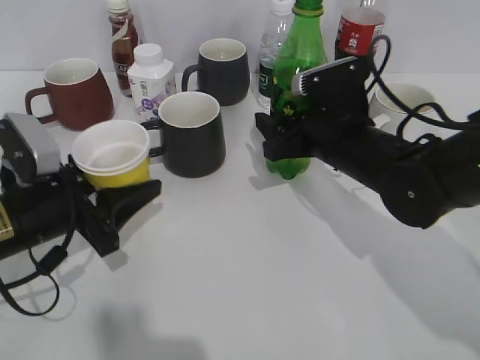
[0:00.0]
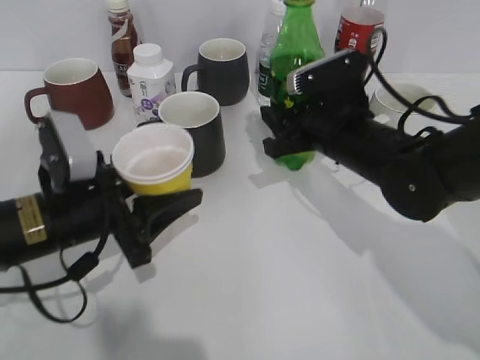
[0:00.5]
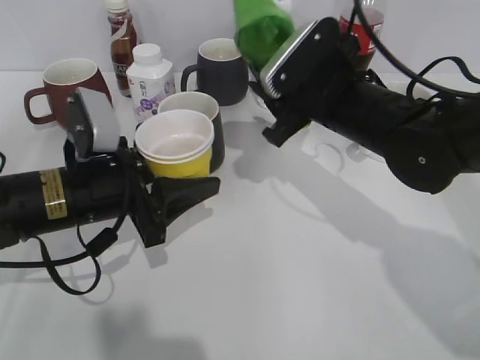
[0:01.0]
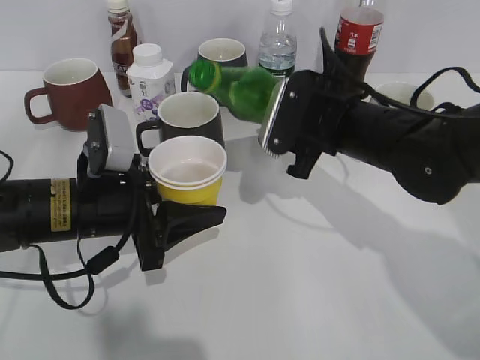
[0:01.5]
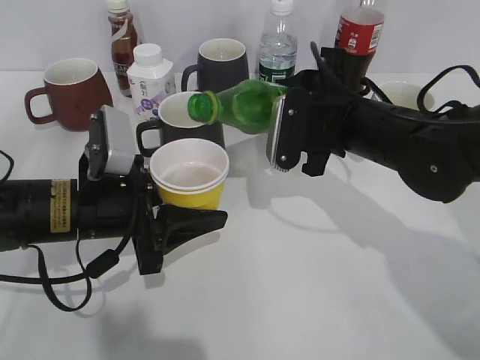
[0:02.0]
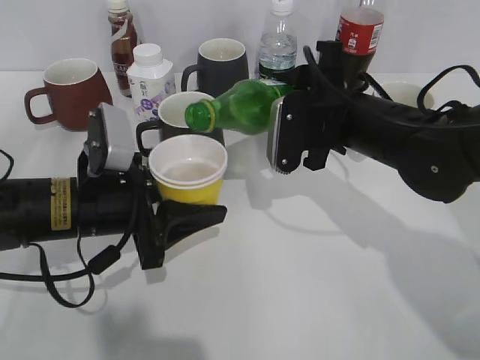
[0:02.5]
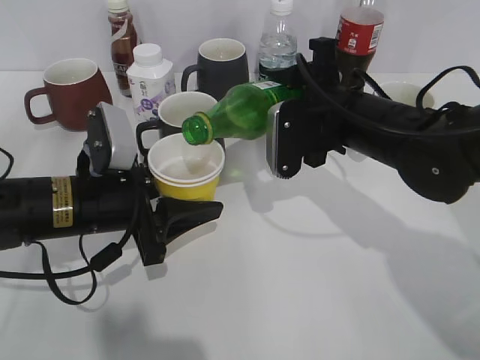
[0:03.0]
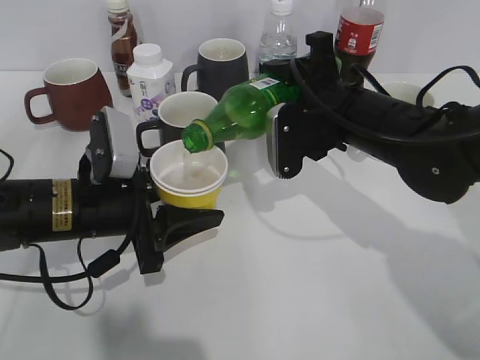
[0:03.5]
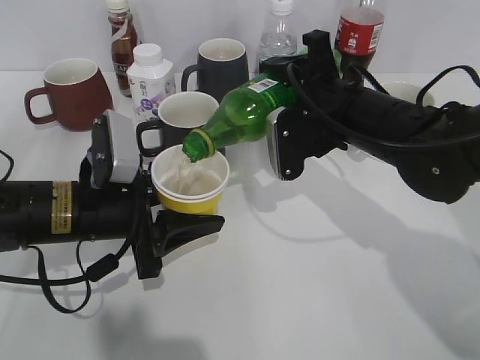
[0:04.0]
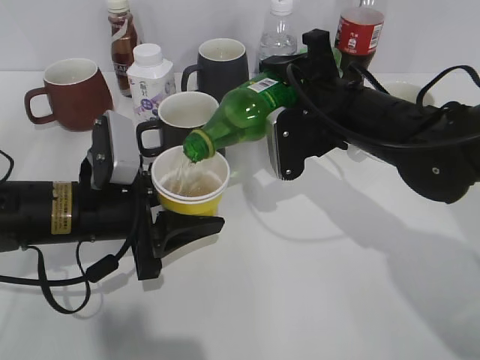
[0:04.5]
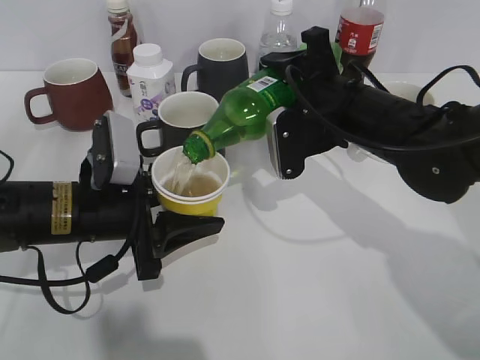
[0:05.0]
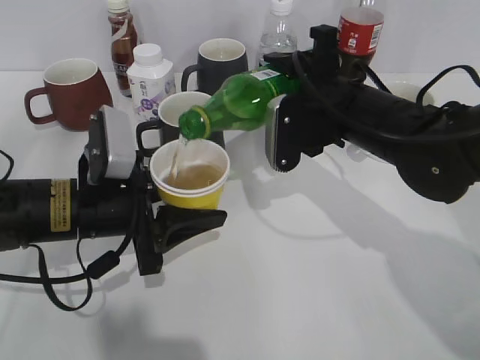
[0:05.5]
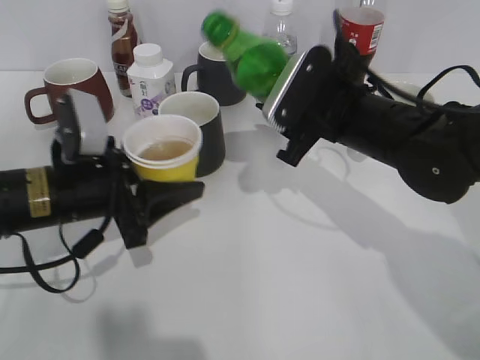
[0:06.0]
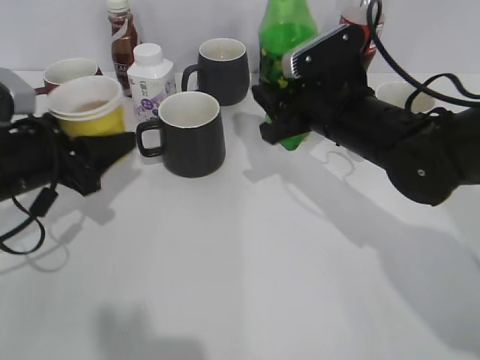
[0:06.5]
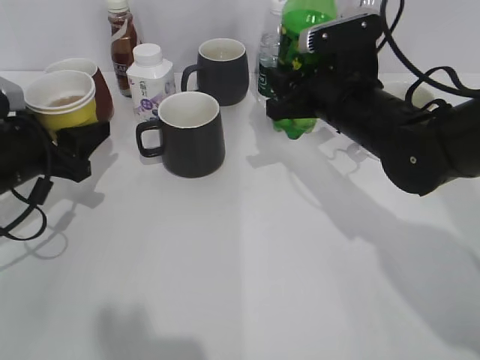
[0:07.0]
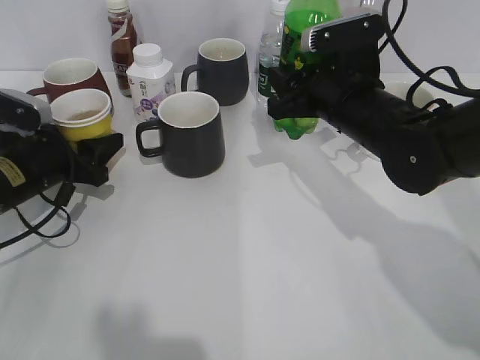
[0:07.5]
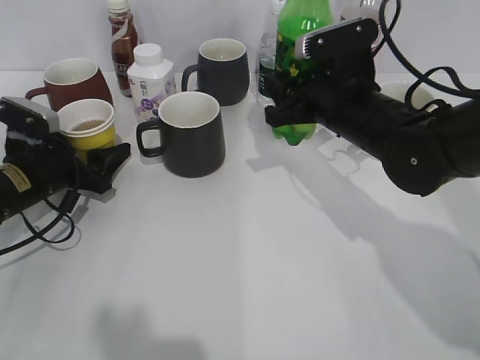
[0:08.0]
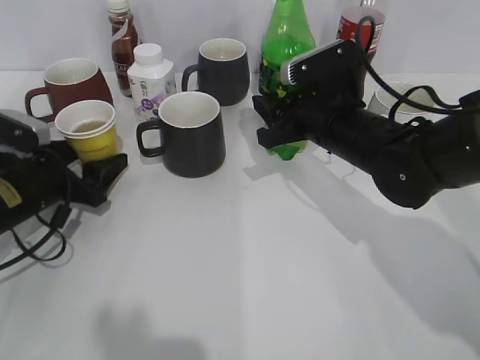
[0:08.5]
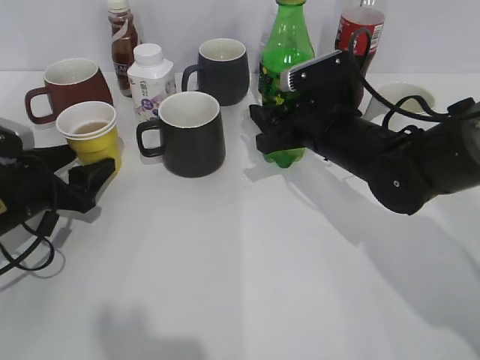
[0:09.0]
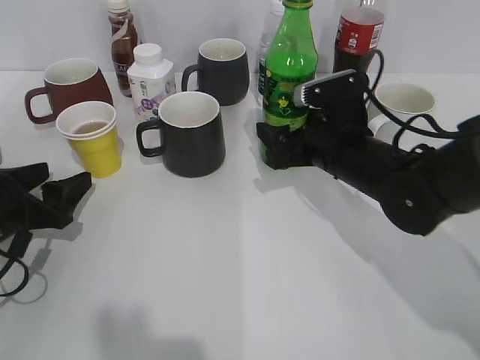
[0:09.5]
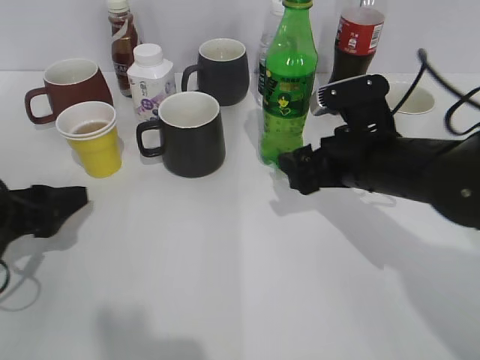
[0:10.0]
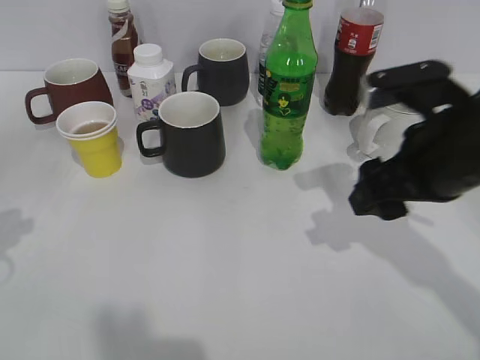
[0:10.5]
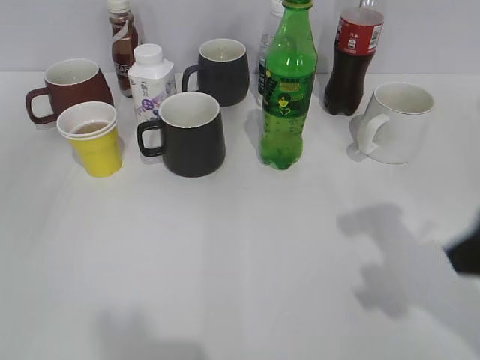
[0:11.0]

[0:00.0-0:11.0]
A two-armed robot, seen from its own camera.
Step, 0:00.5 to 0:05.5: Pour the sprite from bottle to cup with right gripper.
Step, 0:06.0 to 0:07.5: Place the yellow paper cup on the table with left gripper.
Step, 0:08.0 to 0:09.5: Place the sprite bottle on the table with right gripper.
0:00.0 to 0:02.0: The right gripper closes; the left gripper goes approximately 5 cm to the right.
0:02.0 to 0:03.5: There are only small adjustments of the grippers.
0:03.5 to 0:05.5: The grippers move only a little.
0:05.5 to 0:07.5: The left gripper heads to the left and forward, covering approximately 15 cm.
0:07.5 to 0:09.0: The left gripper opens its fingers.
0:09.0 to 0:11.0: The left gripper moves backward and upward, approximately 30 cm. The right gripper heads backward, upward and to the right, covering about 25 cm, and opens.

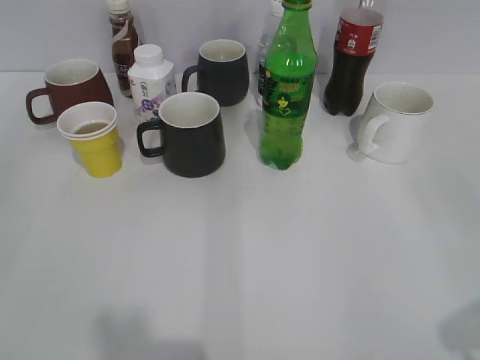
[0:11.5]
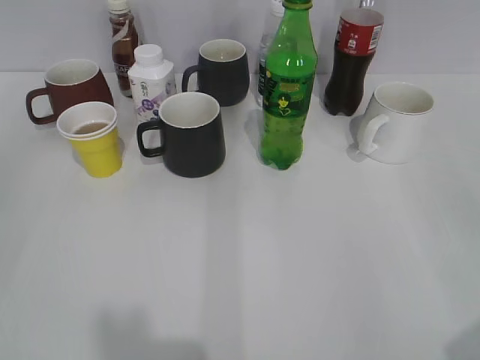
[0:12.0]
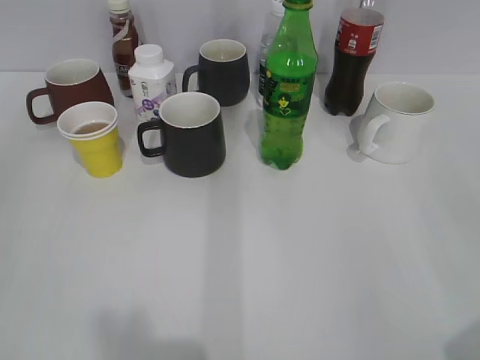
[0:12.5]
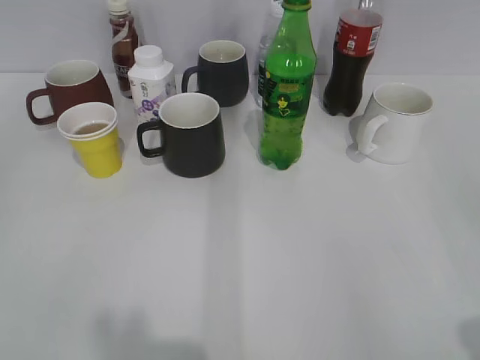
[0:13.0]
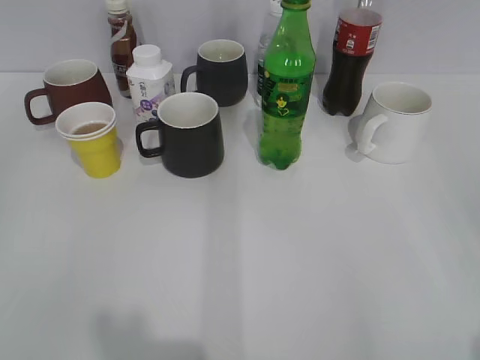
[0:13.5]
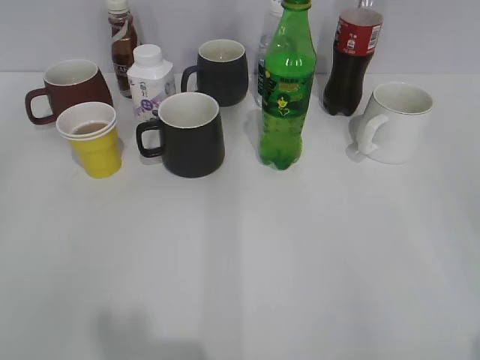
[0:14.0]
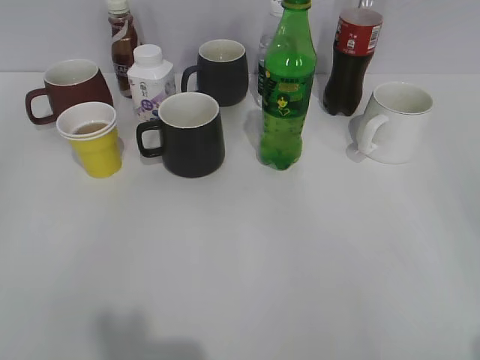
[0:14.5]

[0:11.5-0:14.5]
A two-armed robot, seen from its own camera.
0:13.0 to 0:14.5: The left gripper closes its fingers.

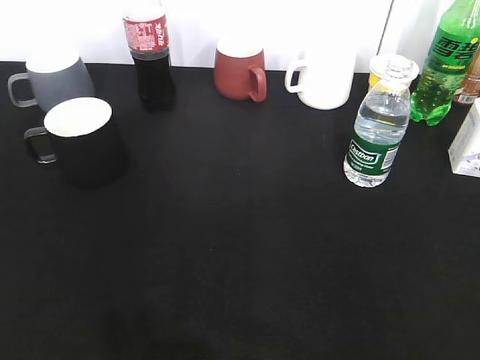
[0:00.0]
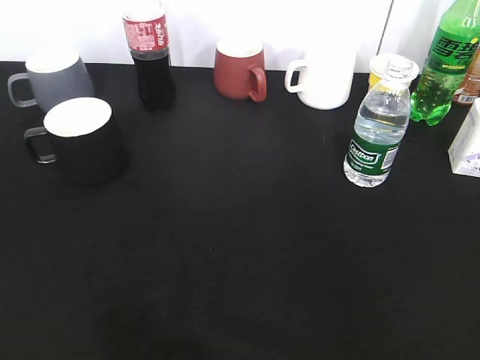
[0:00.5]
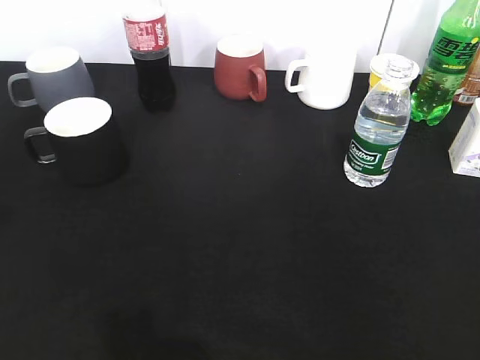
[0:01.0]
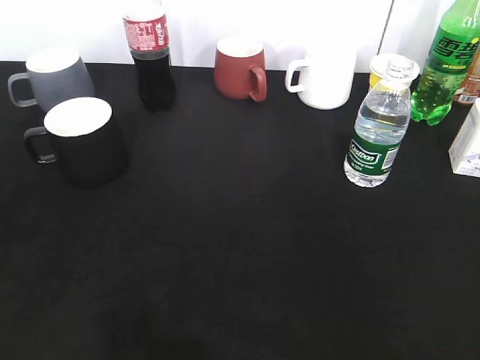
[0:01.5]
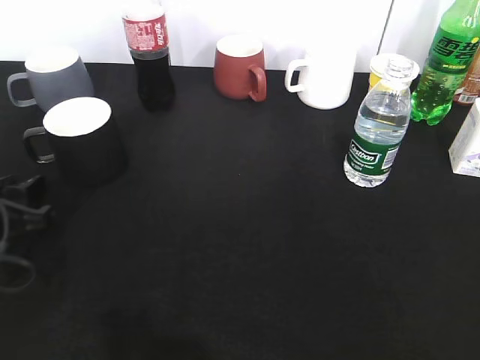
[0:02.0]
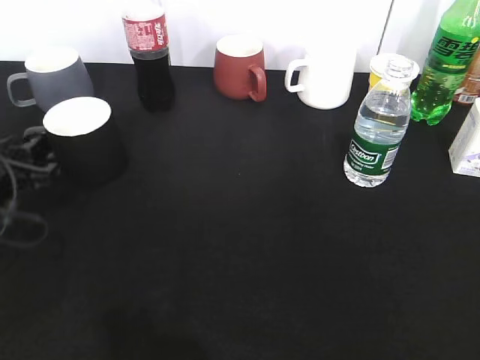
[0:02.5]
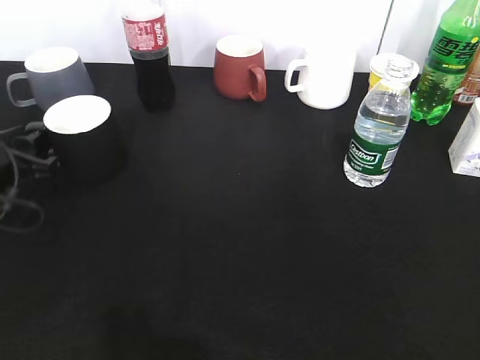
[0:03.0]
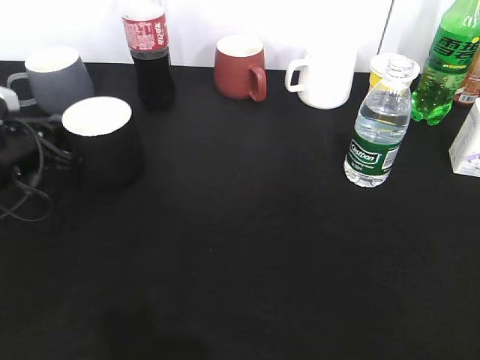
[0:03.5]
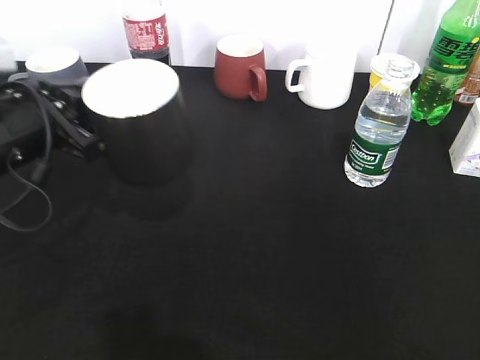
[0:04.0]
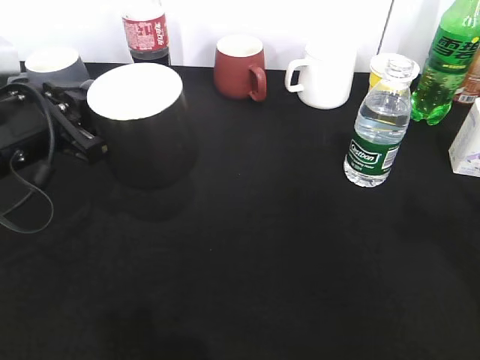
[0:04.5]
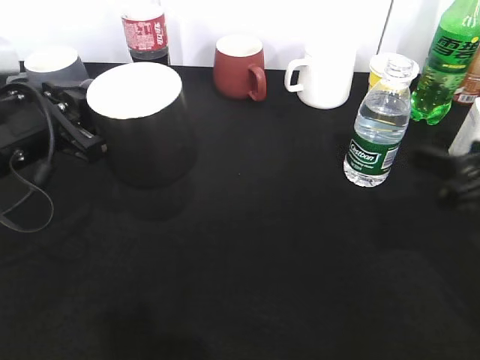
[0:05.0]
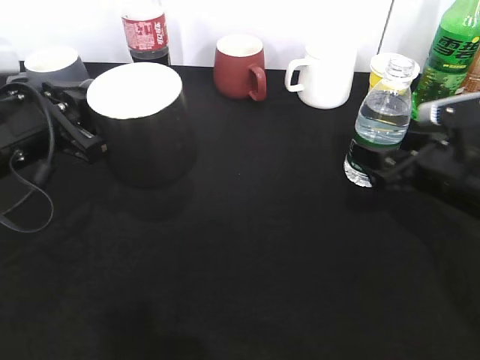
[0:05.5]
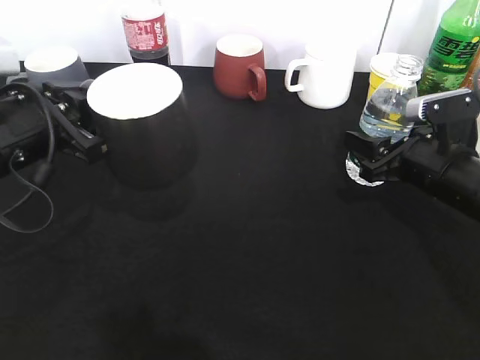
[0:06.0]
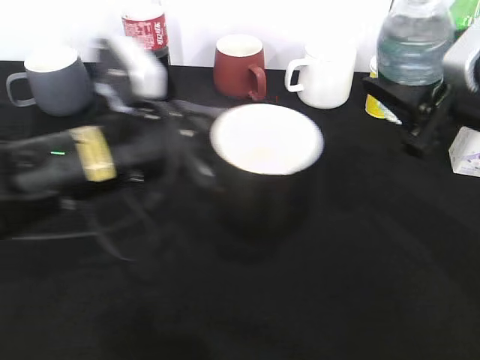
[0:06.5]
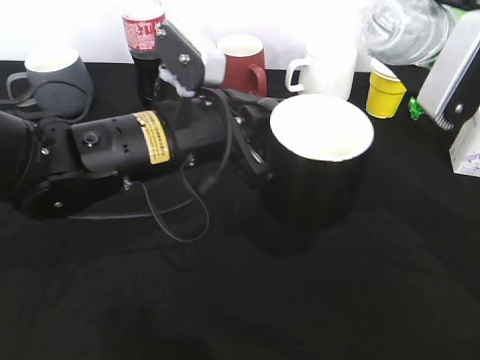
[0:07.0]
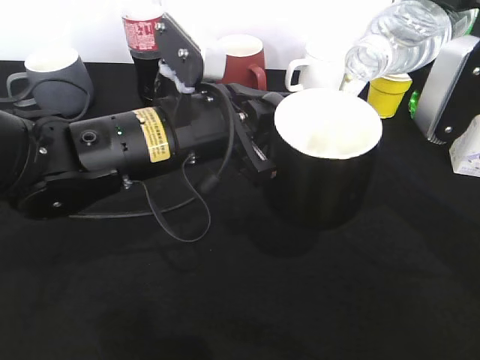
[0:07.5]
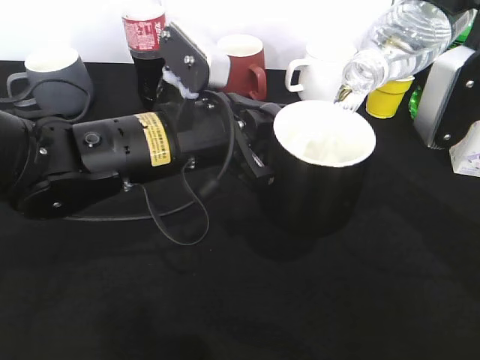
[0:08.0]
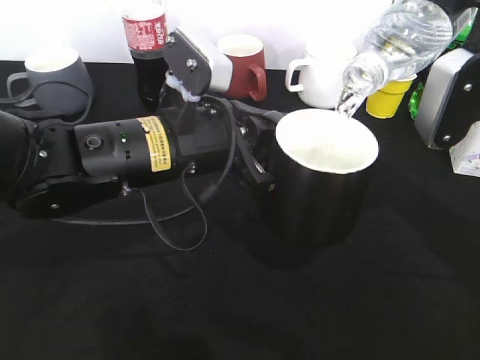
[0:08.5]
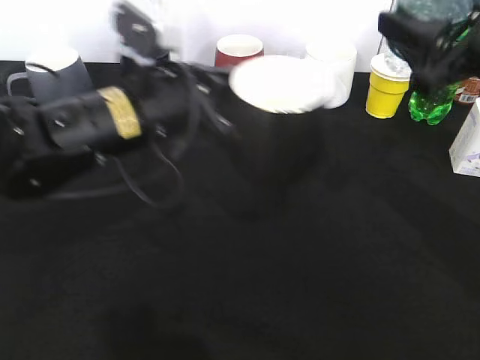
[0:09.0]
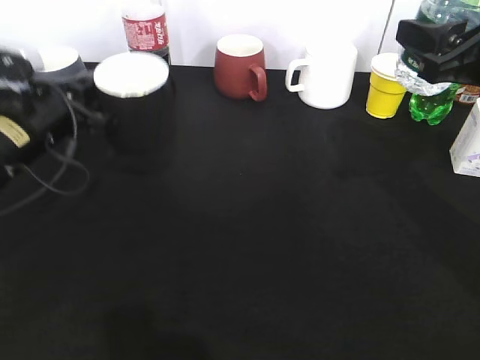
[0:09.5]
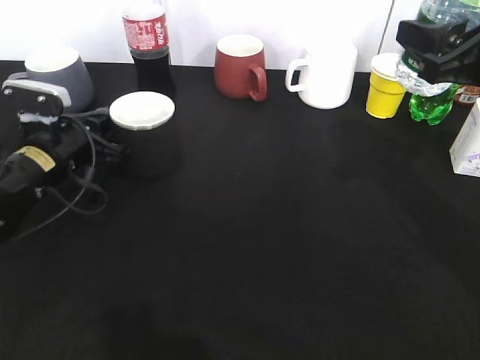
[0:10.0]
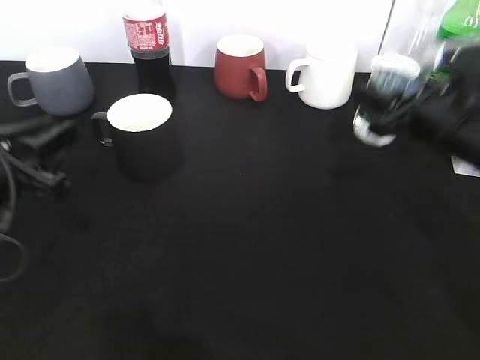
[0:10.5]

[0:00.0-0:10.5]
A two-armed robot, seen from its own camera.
Step, 0:00.5 to 0:03.0: Grasp the black cup with left gripper.
Step, 0:03.5 to 0:04.0: Lift the black cup with left gripper.
Step, 0:04.5 to 0:06.0: Grasp the bottle with water with right gripper.
Step, 0:06.5 to 0:08.5: Pour the water from bottle to cup with right gripper.
0:00.0 to 0:02.0: The left gripper is displaced forward and downward by some 30 cm, and opens.
0:02.0 to 0:04.0: The left gripper heads upward and to the right, covering approximately 10 cm, and closes.
0:04.0 to 0:06.5: The left gripper heads to the right, covering roughly 10 cm. Meanwhile the right gripper heads forward, covering about 25 cm, and closes up.
0:08.5 to 0:10.5: The left gripper goes approximately 20 cm to the left, and opens; the right gripper shifts some 10 cm downward and forward.

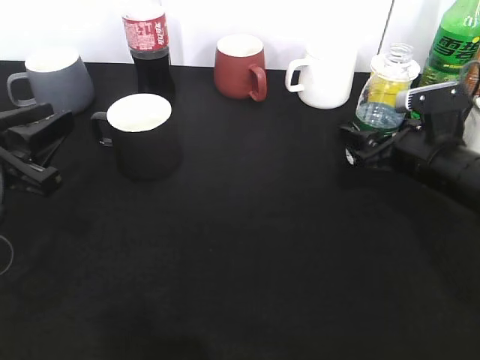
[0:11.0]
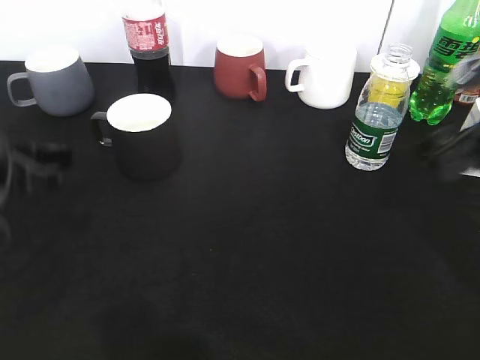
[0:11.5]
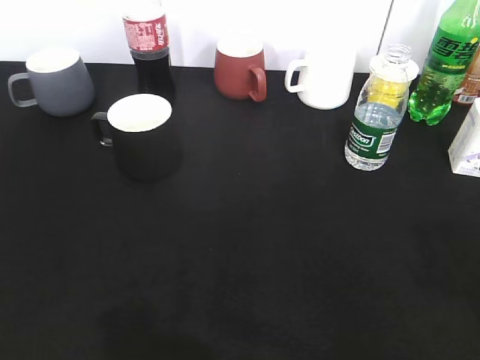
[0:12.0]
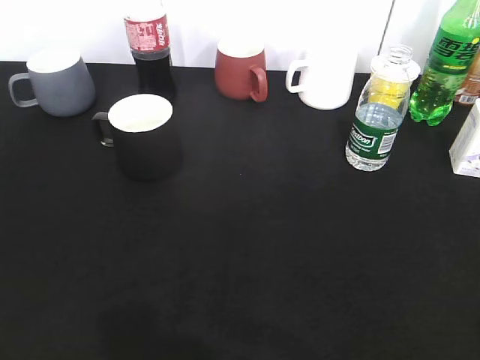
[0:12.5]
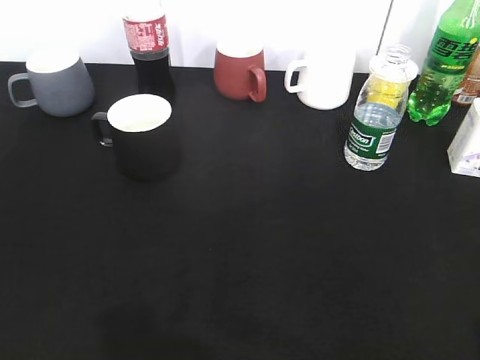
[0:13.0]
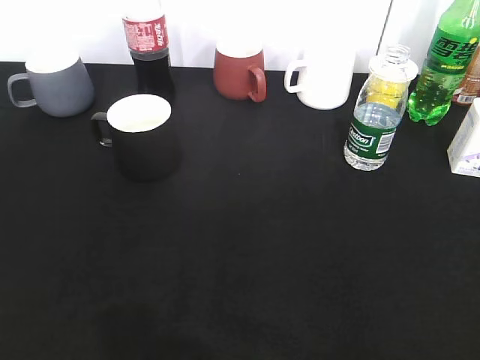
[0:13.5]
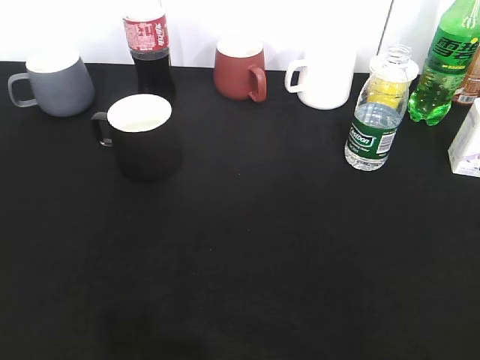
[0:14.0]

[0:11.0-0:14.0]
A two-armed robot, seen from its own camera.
0:11.0 to 0:12.5: The right gripper goes approximately 35 cm backward and upward; the left gripper heads backward and upward, covering approximately 20 cm.
